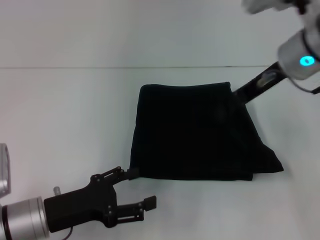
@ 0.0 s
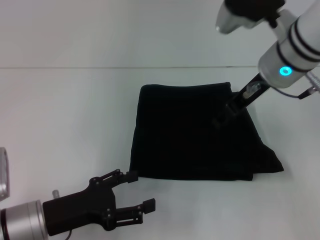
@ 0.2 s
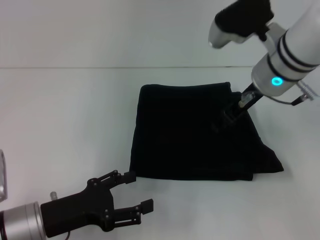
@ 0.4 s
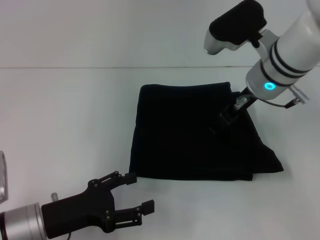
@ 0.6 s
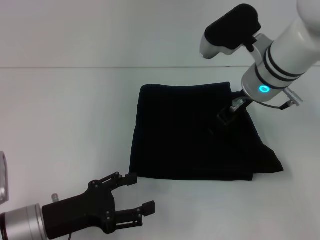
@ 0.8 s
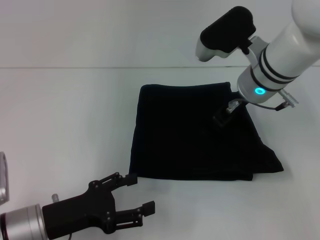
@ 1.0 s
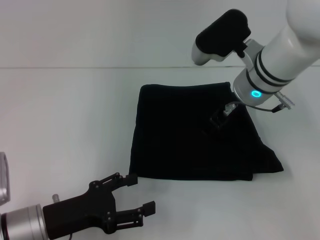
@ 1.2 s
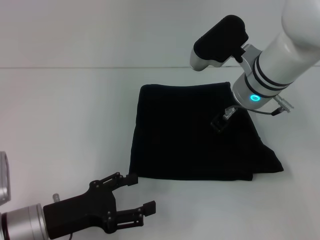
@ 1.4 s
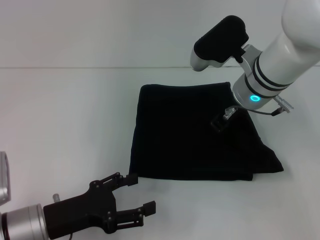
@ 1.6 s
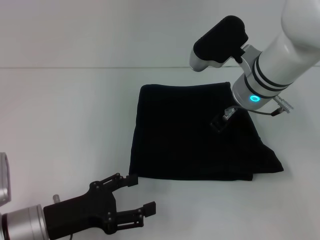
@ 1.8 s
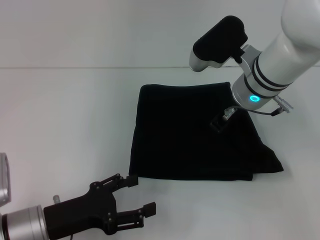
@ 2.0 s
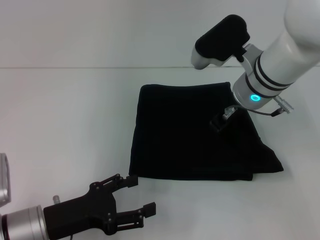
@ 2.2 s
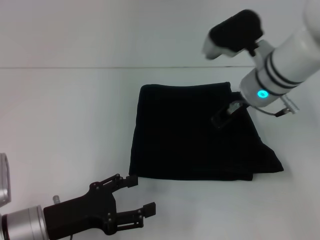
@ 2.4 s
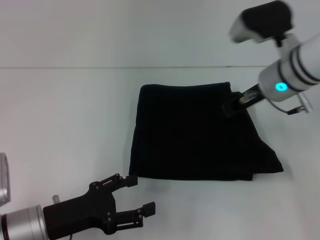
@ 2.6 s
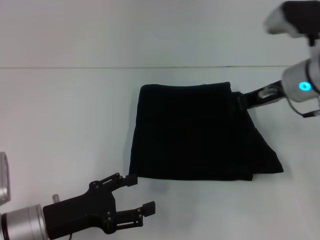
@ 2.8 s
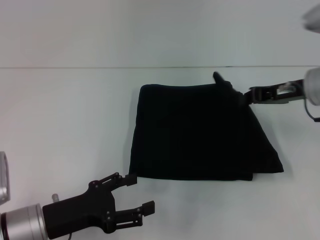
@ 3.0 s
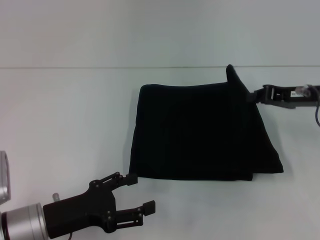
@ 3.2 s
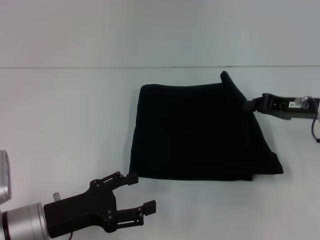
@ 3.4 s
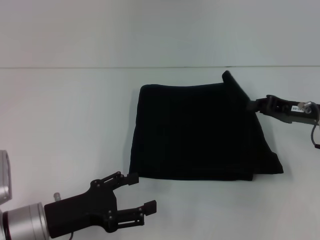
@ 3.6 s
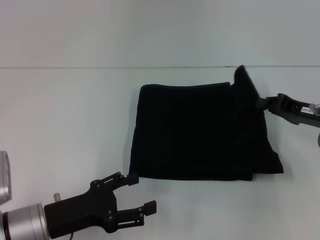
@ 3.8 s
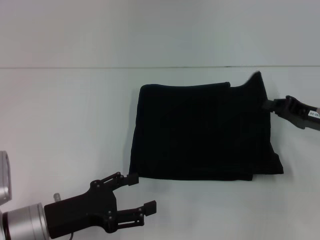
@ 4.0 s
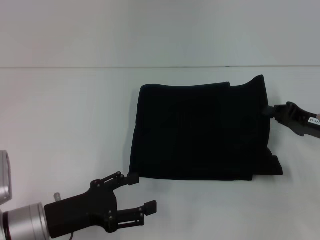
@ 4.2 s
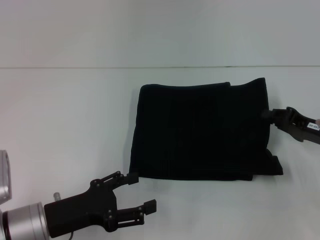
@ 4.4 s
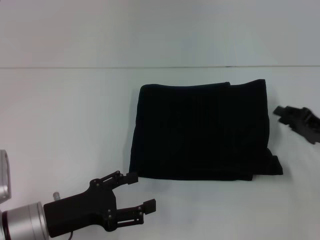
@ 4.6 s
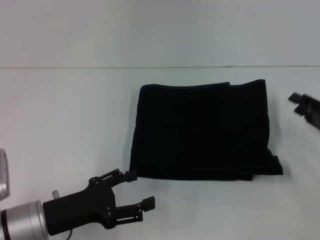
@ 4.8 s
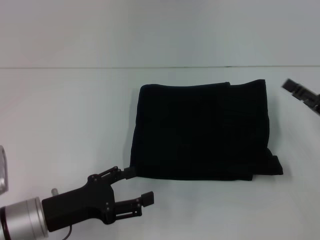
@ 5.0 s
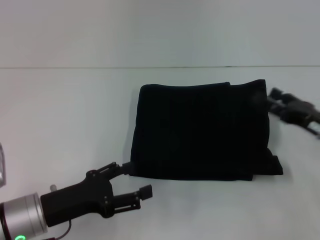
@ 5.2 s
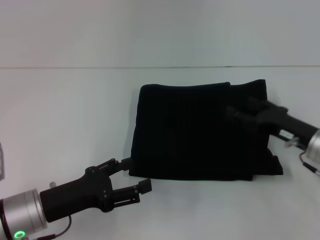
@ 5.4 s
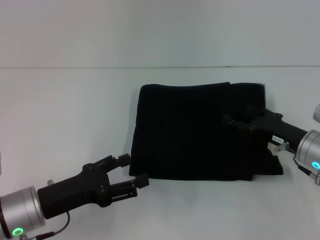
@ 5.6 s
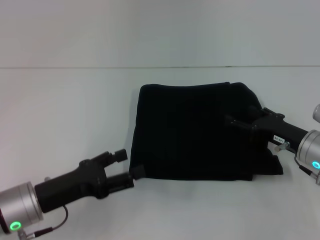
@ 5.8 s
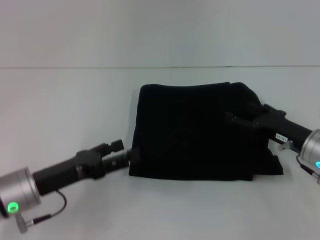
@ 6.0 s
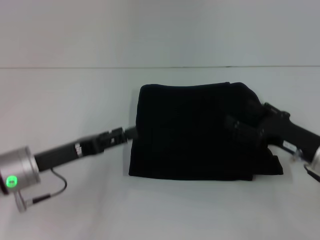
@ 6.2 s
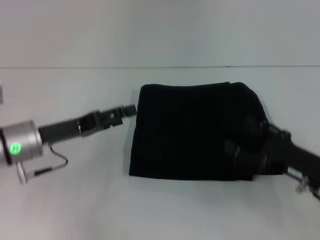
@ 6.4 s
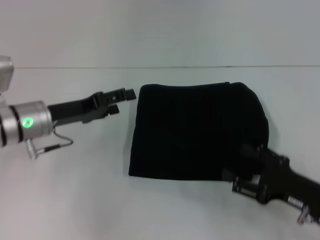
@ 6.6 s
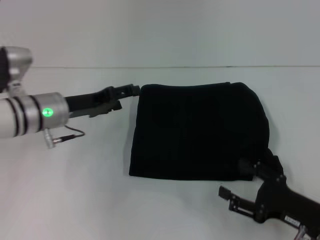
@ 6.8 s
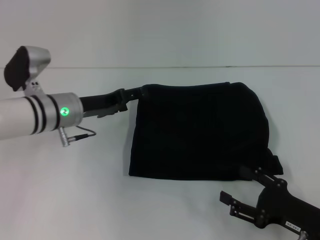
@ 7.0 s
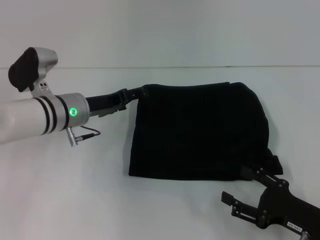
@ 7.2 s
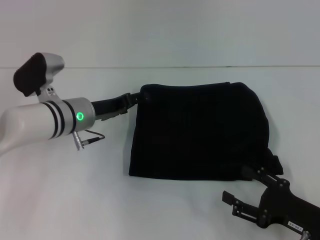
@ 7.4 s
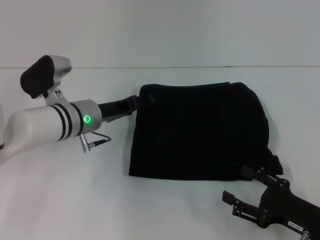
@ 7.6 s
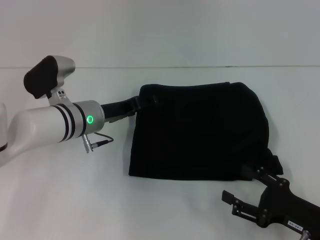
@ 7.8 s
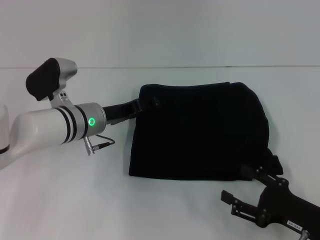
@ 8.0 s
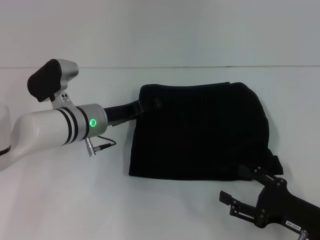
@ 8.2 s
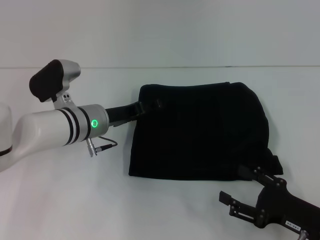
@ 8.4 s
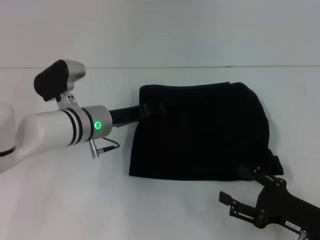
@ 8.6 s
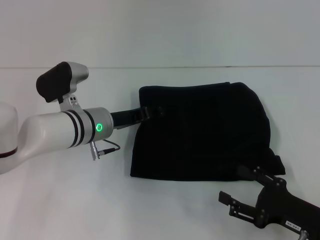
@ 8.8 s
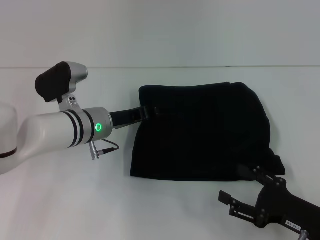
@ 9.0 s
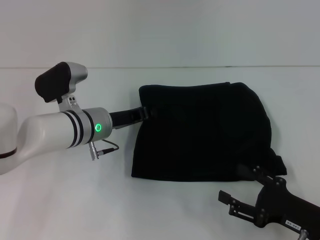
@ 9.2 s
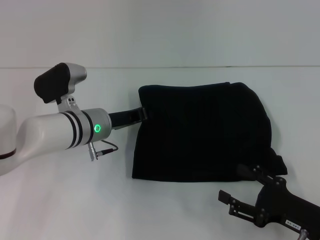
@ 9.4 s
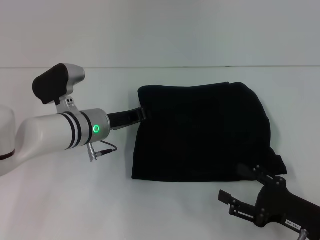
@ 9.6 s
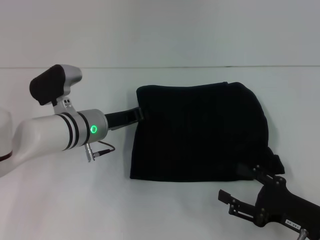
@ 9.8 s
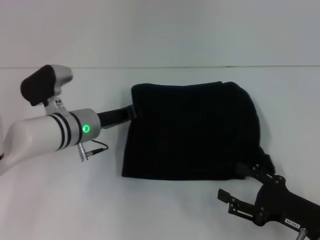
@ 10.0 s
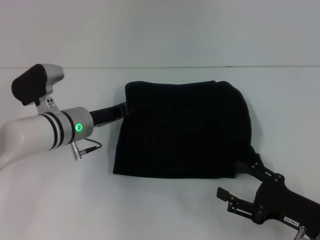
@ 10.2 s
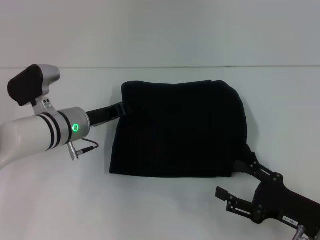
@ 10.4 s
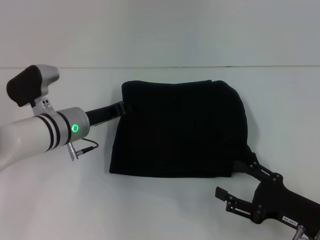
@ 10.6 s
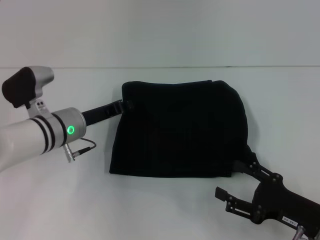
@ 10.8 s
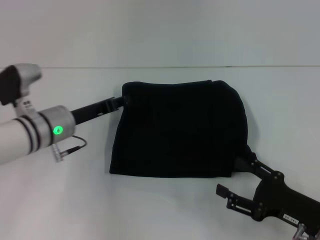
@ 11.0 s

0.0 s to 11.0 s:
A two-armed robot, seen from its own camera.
0.0 to 1.6 s: The right gripper travels downward and to the left by about 10 cm.
1.6 to 3.2 s: The right gripper is displaced to the right by some 15 cm, and closes.
3.2 to 4.8 s: The right gripper goes roughly 10 cm downward, backward and to the right.
4.8 to 6.2 s: The left gripper goes approximately 5 cm forward. The right gripper shifts roughly 5 cm to the left, and opens up.
6.2 to 7.8 s: The right gripper goes roughly 10 cm backward, while the left gripper shifts roughly 15 cm forward and to the right.
7.8 to 9.4 s: The left gripper closes up.
9.4 to 11.0 s: The left gripper travels to the left by roughly 5 cm.

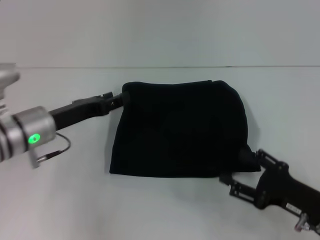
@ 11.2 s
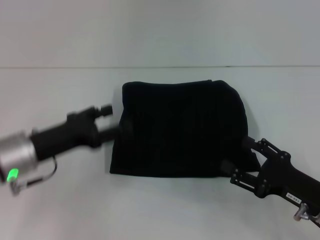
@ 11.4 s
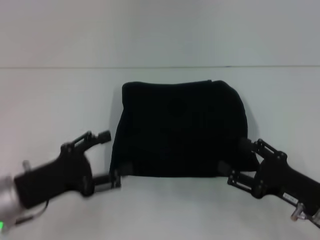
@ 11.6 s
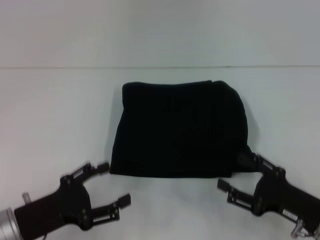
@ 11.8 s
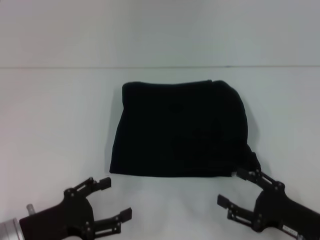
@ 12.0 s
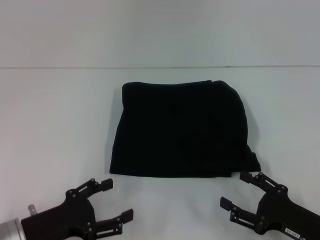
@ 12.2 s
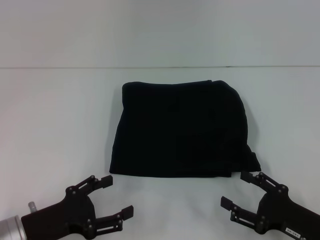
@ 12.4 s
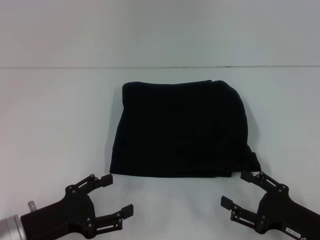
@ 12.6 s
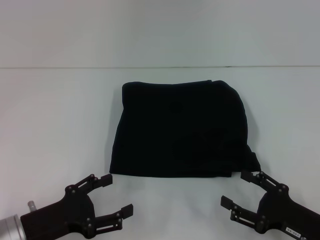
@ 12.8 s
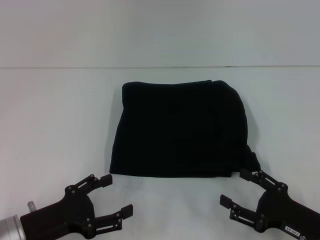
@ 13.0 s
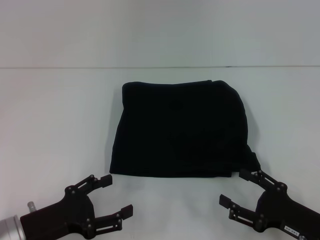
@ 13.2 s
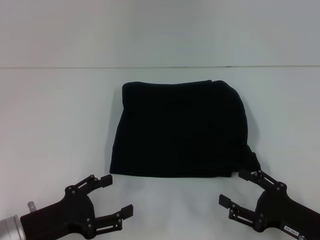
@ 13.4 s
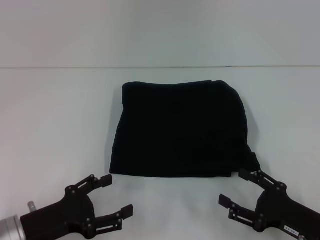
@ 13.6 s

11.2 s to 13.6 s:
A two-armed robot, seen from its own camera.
11.2 to 12.4 s: The left gripper is displaced backward and downward by approximately 15 cm, and opens its fingers.
12.4 to 13.6 s: Both grippers stay about where they are.
